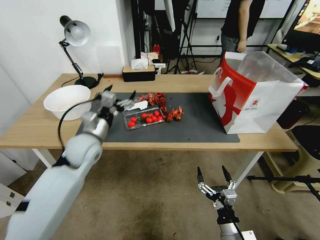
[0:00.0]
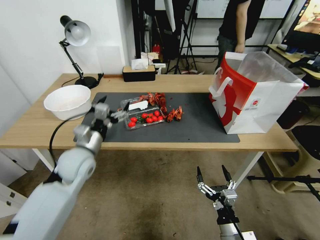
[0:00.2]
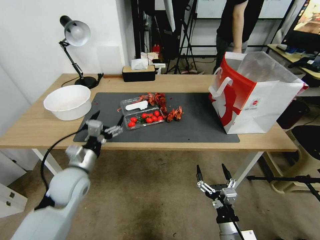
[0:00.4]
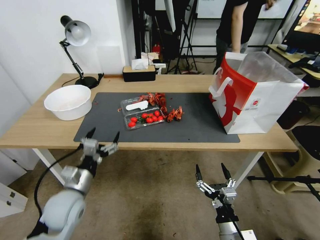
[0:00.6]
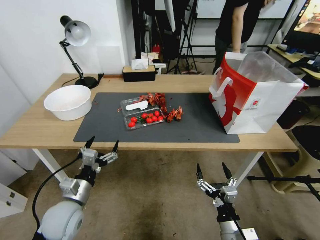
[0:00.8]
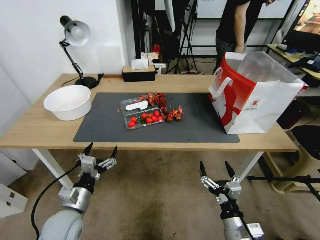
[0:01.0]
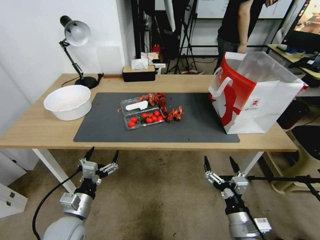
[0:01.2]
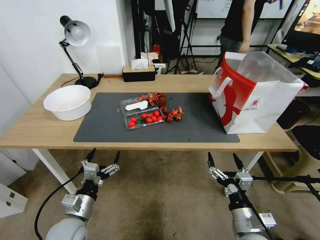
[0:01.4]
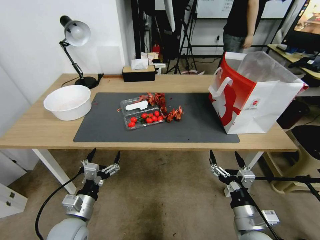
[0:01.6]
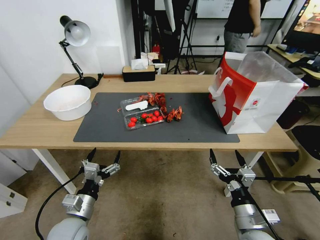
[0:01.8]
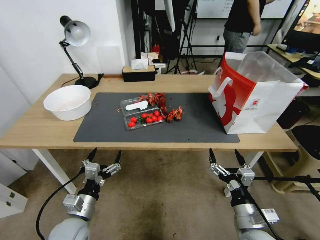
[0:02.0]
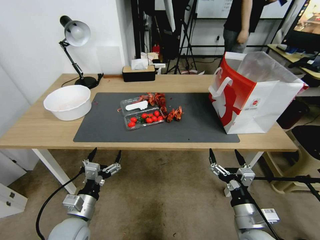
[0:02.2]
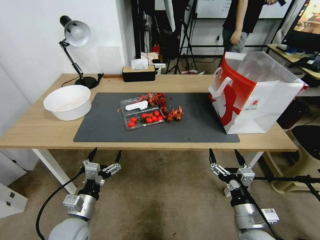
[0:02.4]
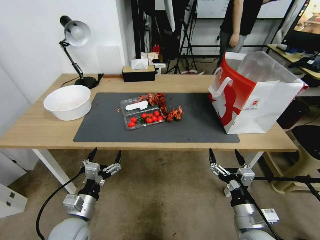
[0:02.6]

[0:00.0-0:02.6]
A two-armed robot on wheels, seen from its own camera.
0:00.0 to 0:01.2: The left gripper shifts some 25 cm backward and downward. Meanwhile the right gripper moves upward, about 5 cm.
0:01.2 to 0:02.6: The grippers stay close to where they were, moving slightly.
